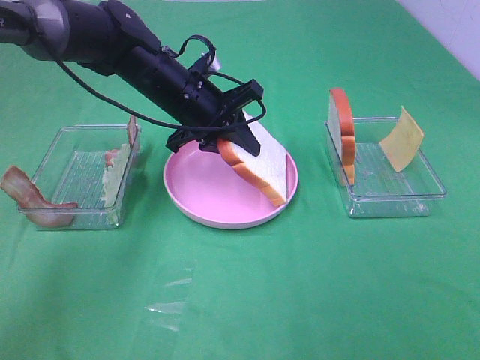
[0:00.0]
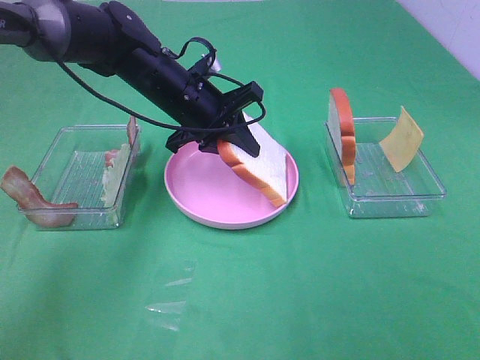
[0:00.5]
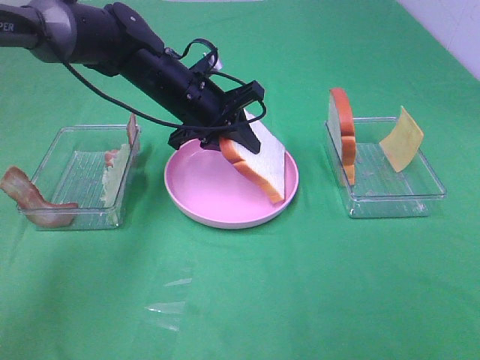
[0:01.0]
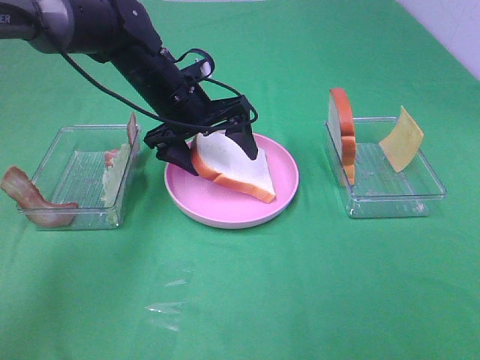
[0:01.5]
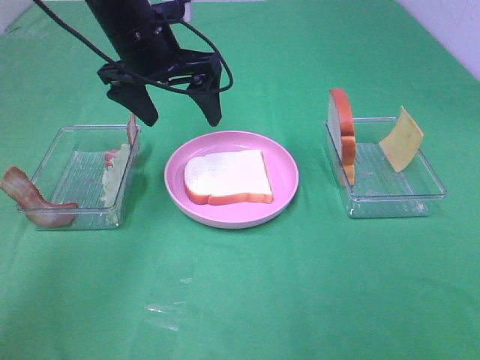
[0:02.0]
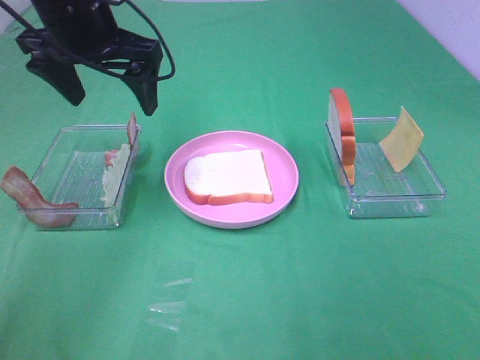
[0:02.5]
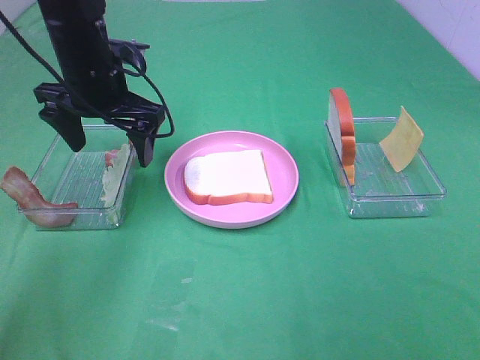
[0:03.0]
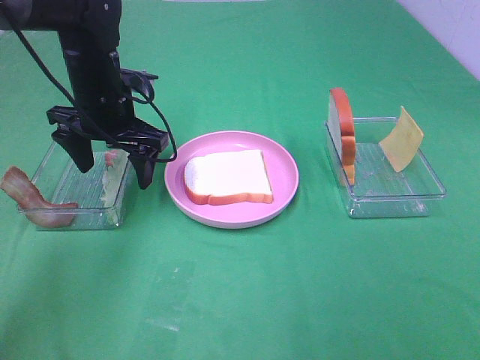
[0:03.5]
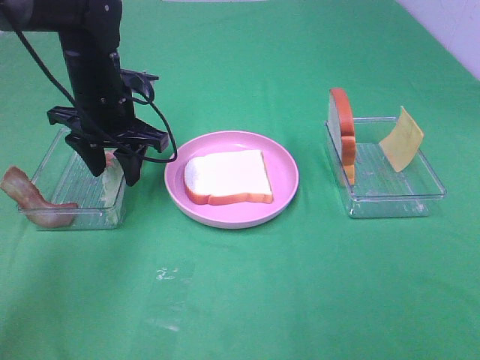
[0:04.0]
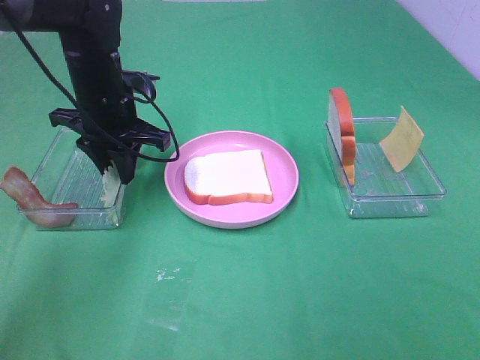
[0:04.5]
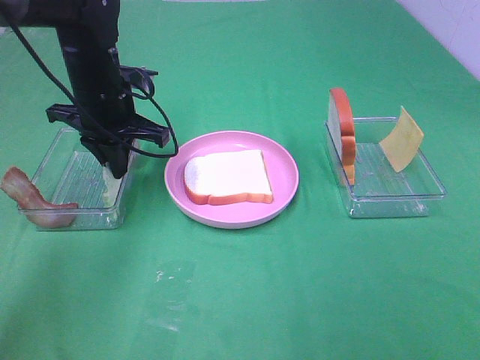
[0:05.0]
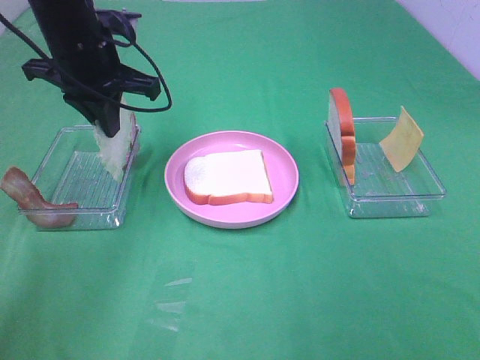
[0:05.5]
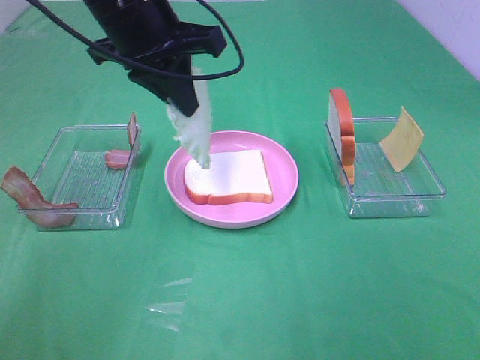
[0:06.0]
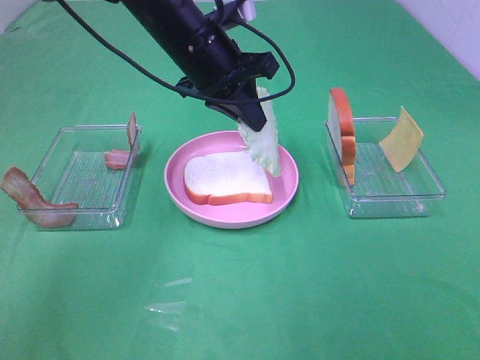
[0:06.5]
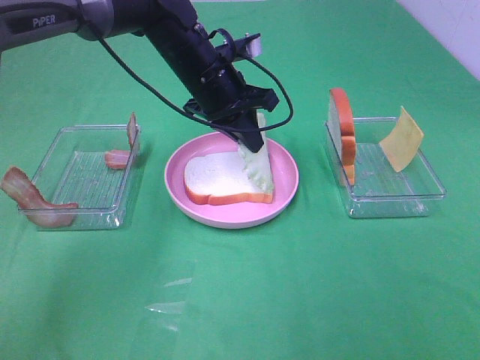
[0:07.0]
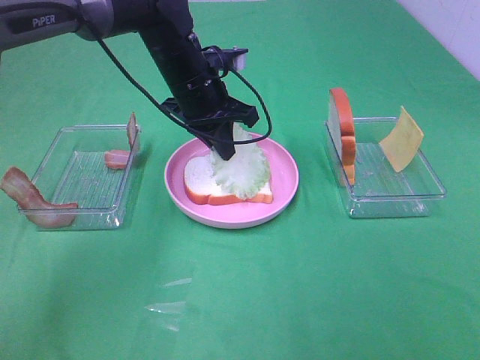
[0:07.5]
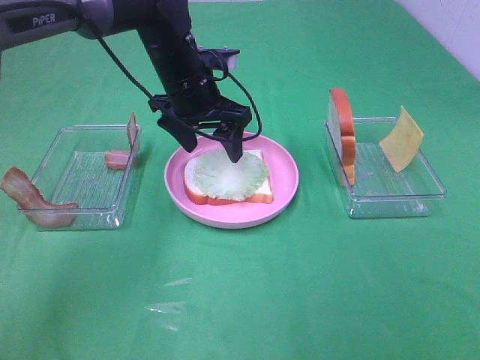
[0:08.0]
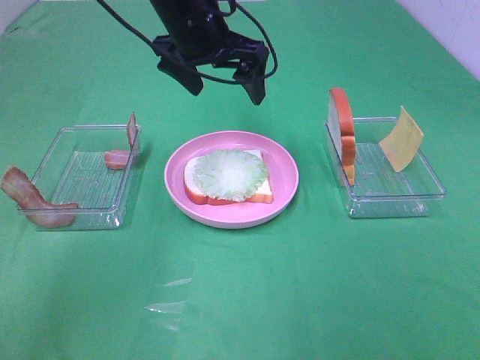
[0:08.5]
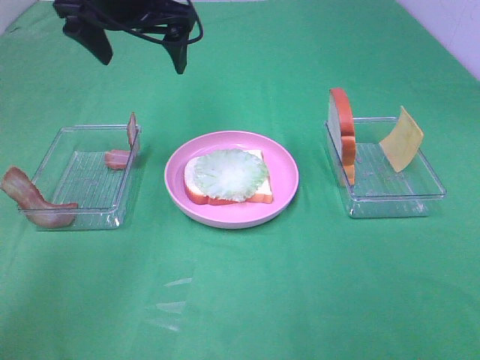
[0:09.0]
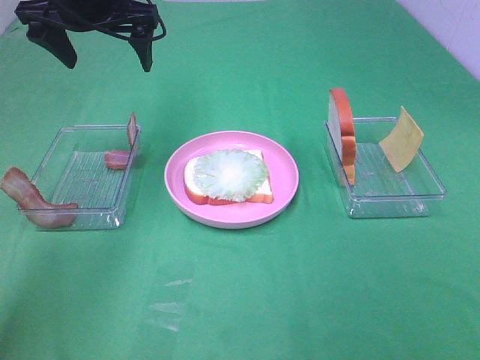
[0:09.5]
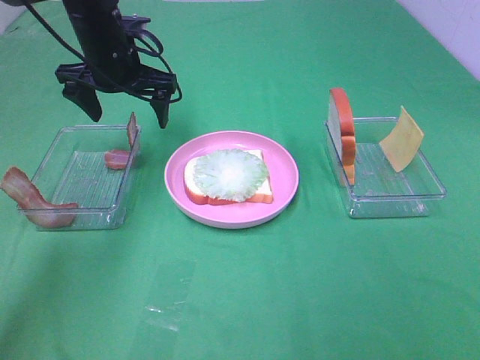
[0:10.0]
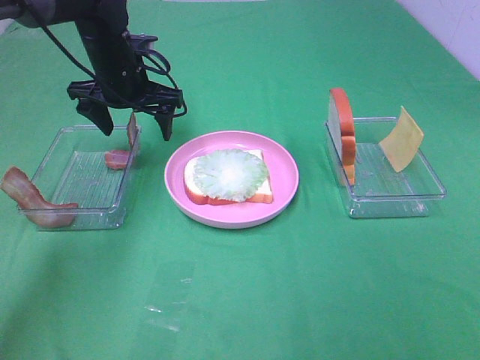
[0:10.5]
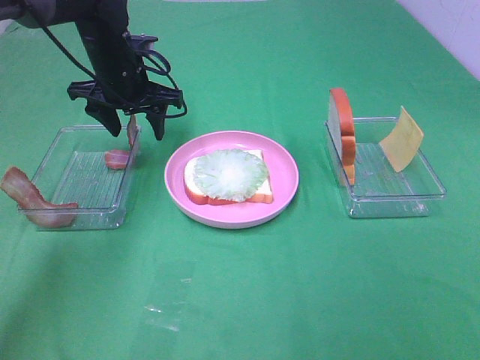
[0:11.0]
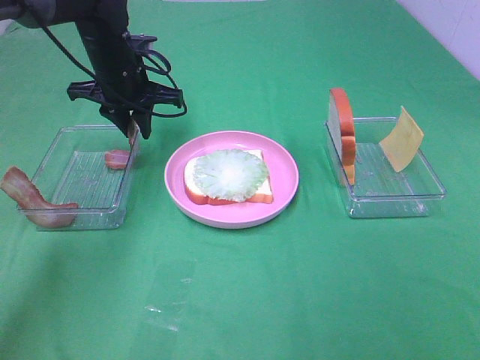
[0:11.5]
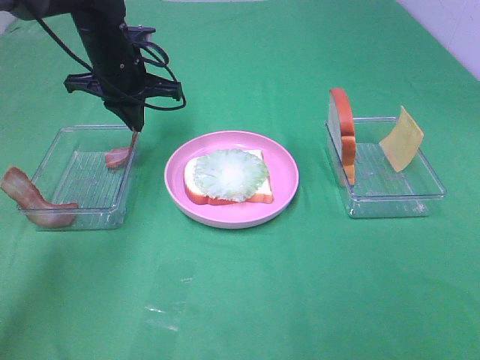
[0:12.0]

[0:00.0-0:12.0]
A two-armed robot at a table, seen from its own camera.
Task of the whole recording: Make sandwiches.
Step, 0:02.0 to 0:05.0: Left hand:grab the lettuce slice.
Step, 0:05.5 to 0:08.0: Left hand:place the lettuce slice on the bread slice.
Step, 0:08.5 to 0:11.5: Left hand:grab the bacon.
0:00.0 to 0:02.0: The left gripper moves upward, some 10 cm, and opens up.
0:02.0 to 0:04.0: The left gripper goes approximately 10 cm downward, and closes.
0:04.0 to 0:06.0: The left gripper shifts roughly 15 cm upward and to the right, and closes its fingers.
0:06.0 to 0:08.0: The left gripper shifts about 15 cm downward and forward, and opens.
0:08.0 to 0:10.0: The left gripper moves to the left, some 10 cm, and goes upward and returns, some 10 cm each way.
0:10.0 to 0:12.0: The left gripper closes.

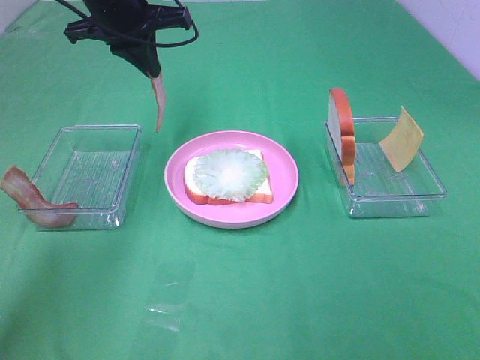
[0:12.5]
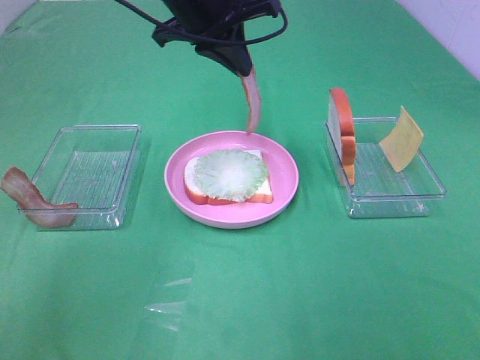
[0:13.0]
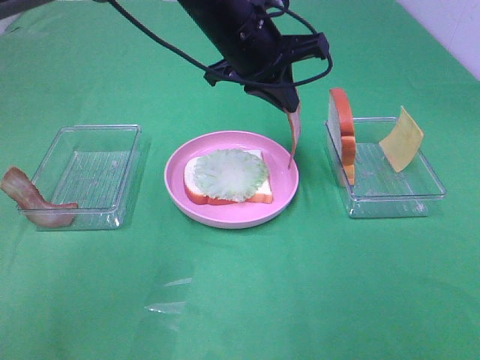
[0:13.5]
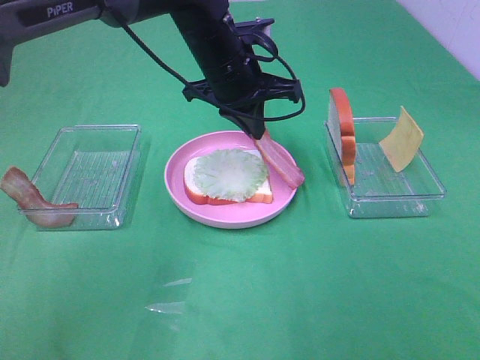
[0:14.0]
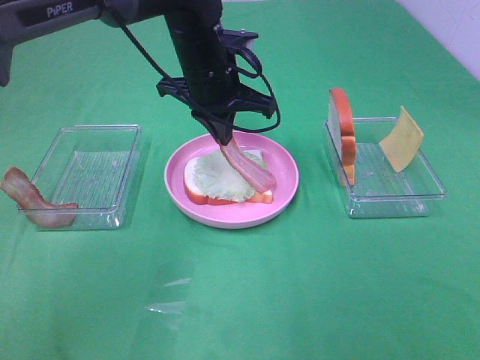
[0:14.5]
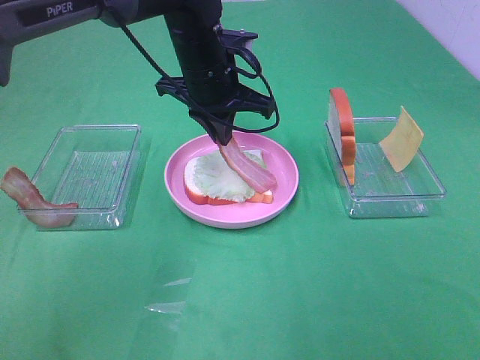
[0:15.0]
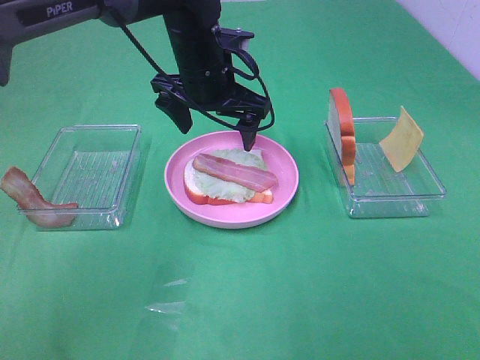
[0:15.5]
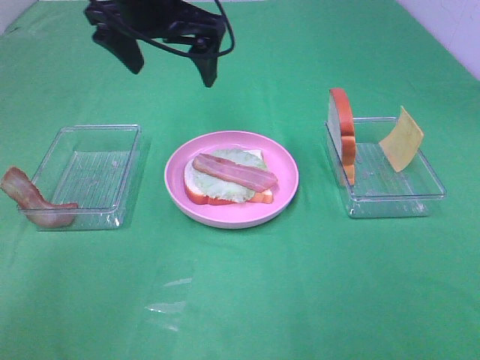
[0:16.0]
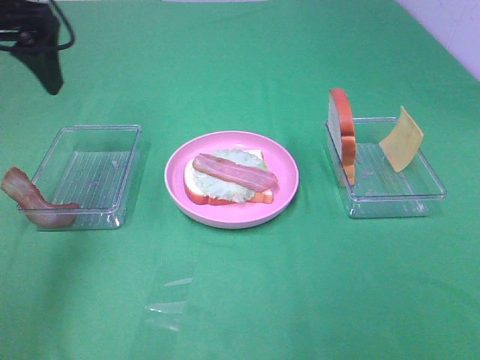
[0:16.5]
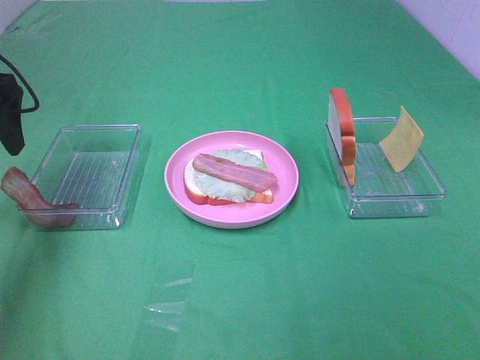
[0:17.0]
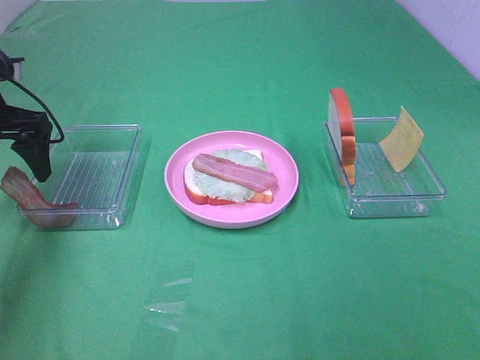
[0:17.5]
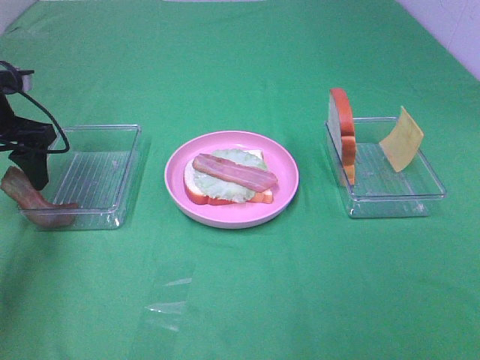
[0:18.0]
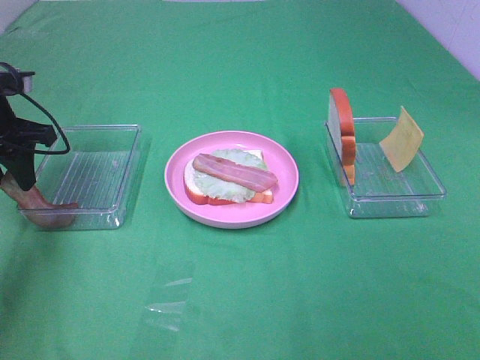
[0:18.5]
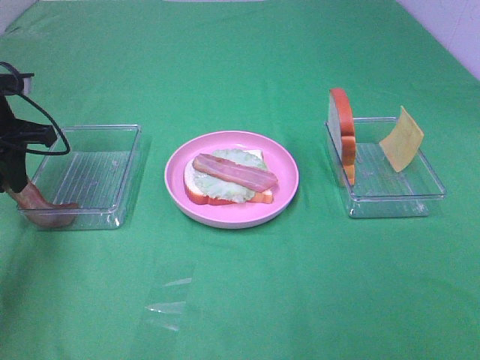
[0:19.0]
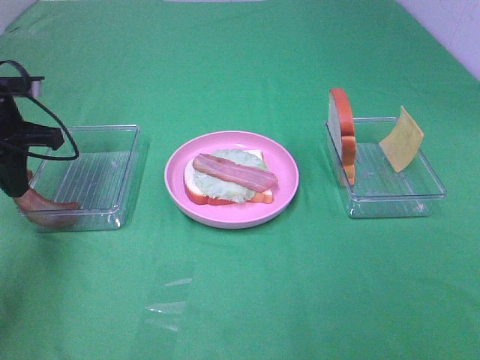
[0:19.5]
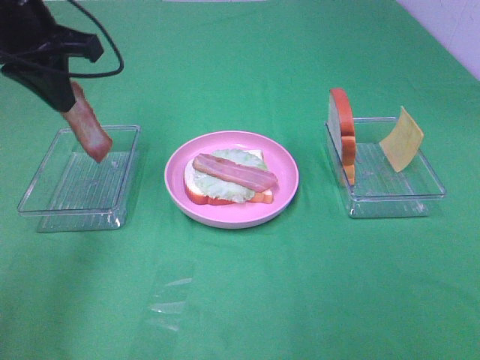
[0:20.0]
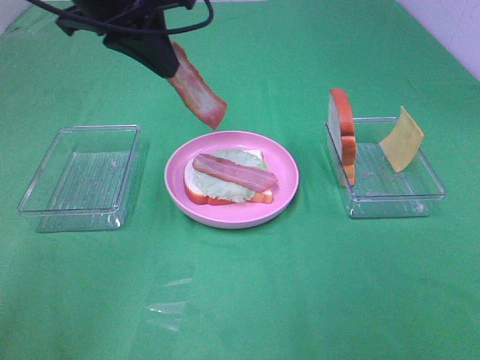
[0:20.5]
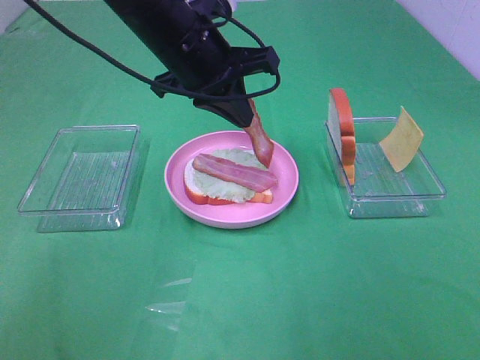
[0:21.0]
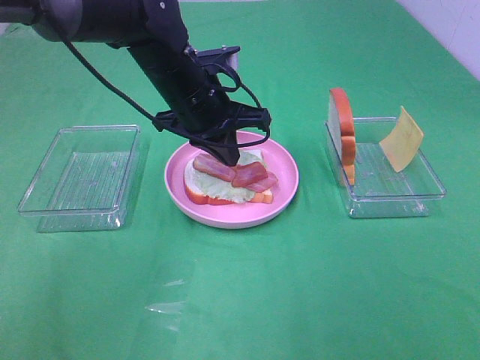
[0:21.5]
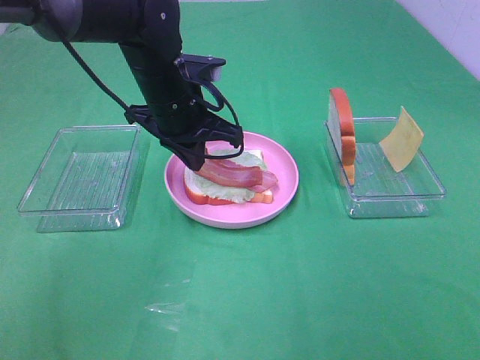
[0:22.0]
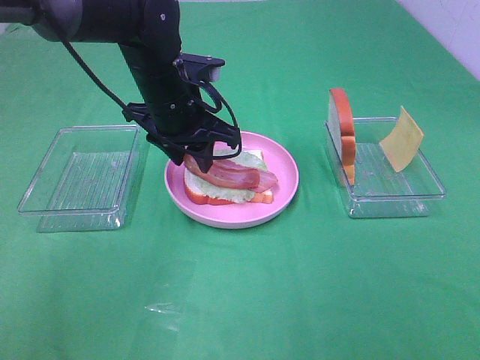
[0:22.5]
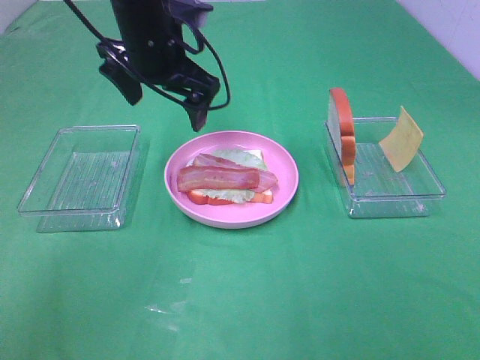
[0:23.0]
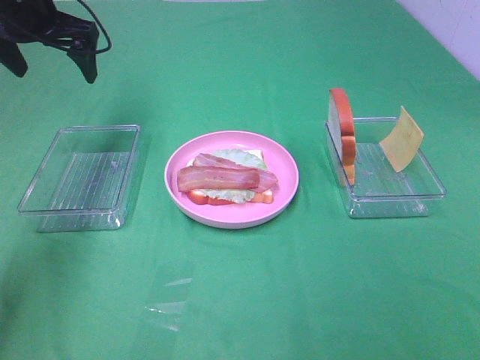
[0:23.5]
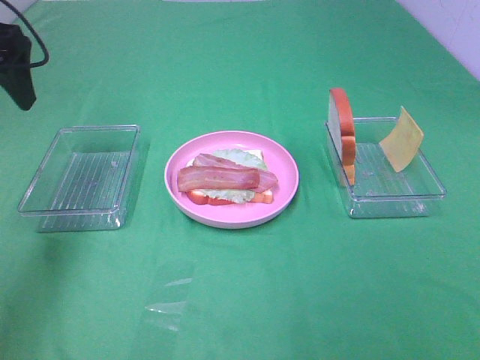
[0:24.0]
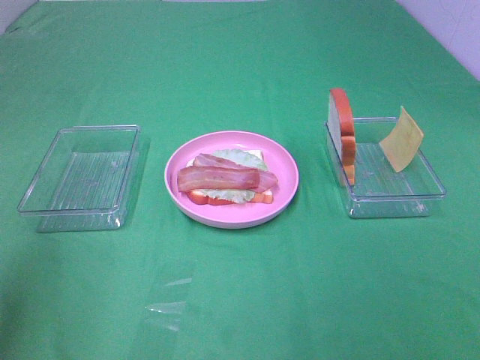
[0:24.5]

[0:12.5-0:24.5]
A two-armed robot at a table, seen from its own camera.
Task of the whole recording: Make sandwiches.
Step, 0:12.5 to 0:15.0: Left hand:place bacon on lettuce slice.
Step, 0:15.5 to 0:19.0: Left hand:grab the bacon.
Step, 0:19.5 to 0:22.5: Left hand:place bacon on bacon.
0:12.5 to 0:14.5: The left gripper goes some 15 cm to the right and downward.
0:14.5 to 0:16.5: The left gripper shifts roughly 25 cm to the left, upward and backward, and opens.
0:16.5 to 0:18.5: The left gripper goes about 15 cm downward, and closes.
0:18.5 to 0:20.5: The left gripper heads to the right and upward, covering approximately 25 cm, and closes its fingers.
0:20.5 to 0:22.5: The left gripper shifts about 15 cm downward, and opens its fingers.
0:22.5 to 0:24.5: The left gripper shifts approximately 40 cm backward, to the left and upward, and opens its fingers.

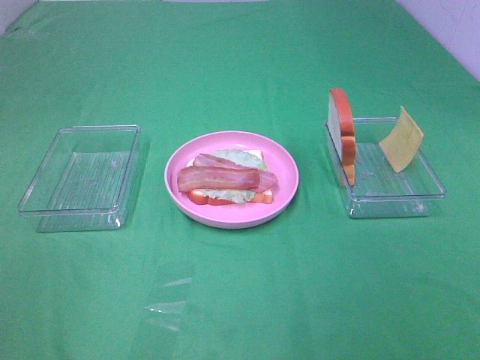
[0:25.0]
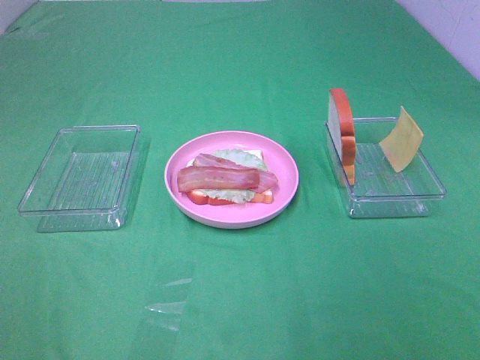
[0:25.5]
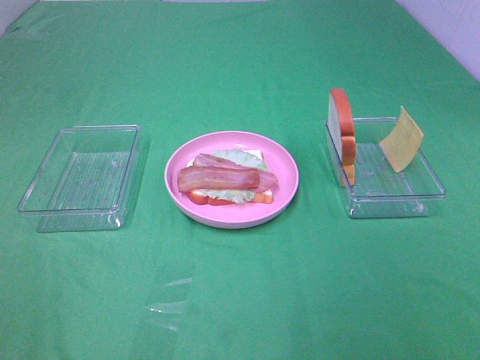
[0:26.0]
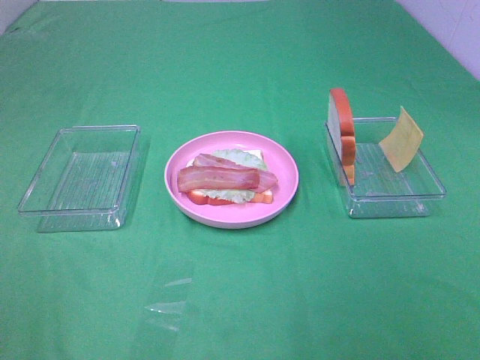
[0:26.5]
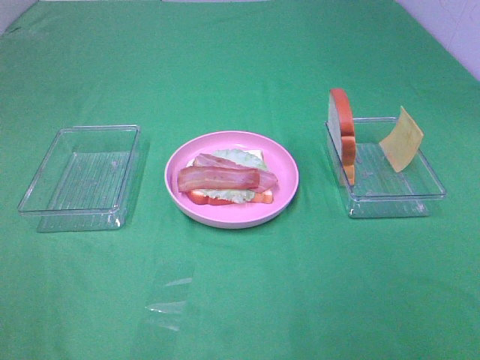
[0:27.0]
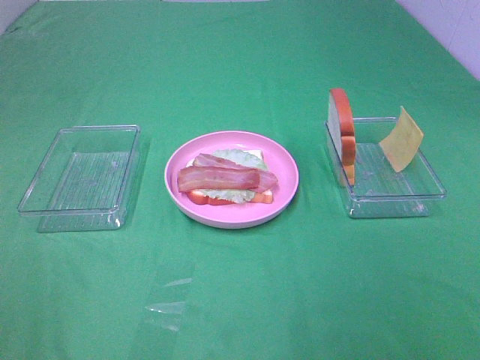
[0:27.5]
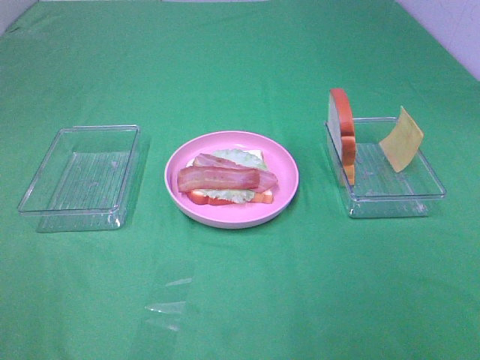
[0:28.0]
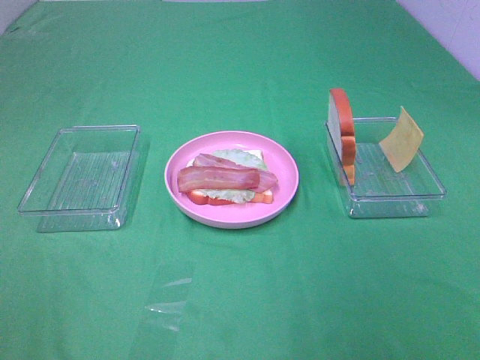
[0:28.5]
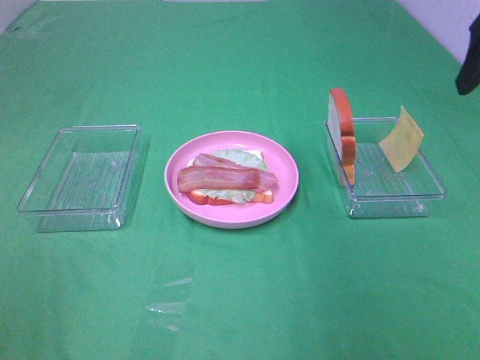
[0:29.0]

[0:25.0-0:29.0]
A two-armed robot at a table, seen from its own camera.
Task of the whole recording: Make sandwiches.
0:27.0 to 0:29.0: The right gripper heads forward, covering about 30 cm.
